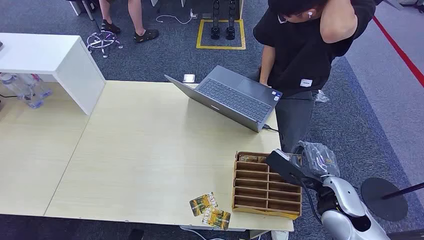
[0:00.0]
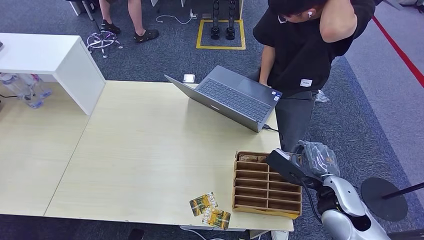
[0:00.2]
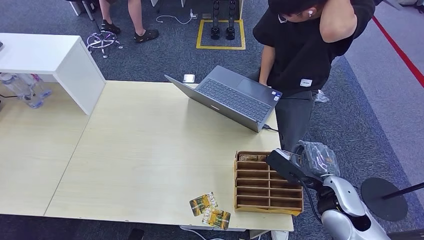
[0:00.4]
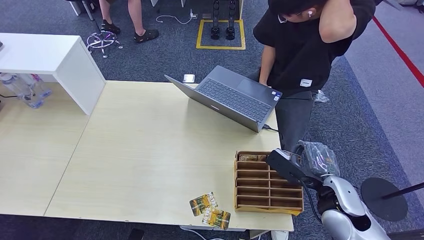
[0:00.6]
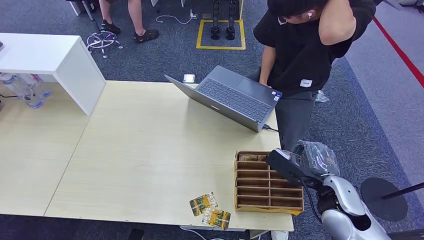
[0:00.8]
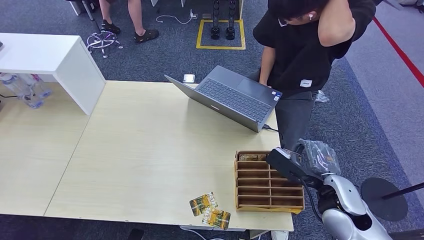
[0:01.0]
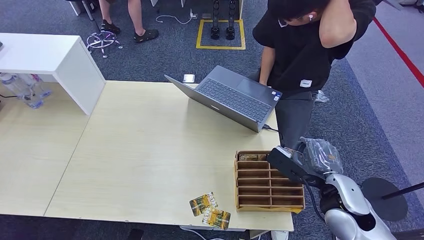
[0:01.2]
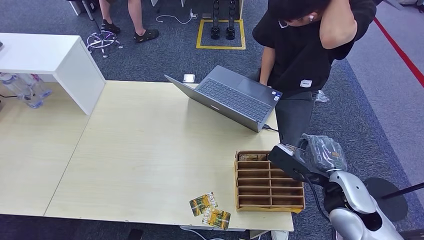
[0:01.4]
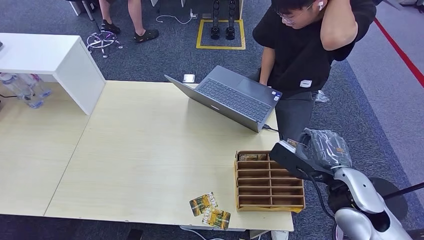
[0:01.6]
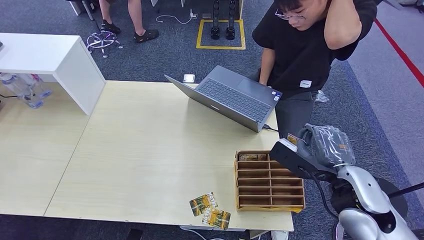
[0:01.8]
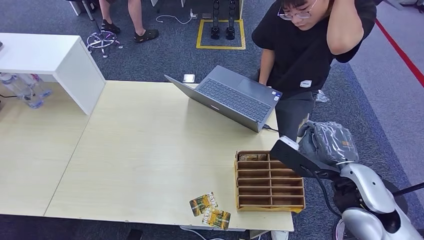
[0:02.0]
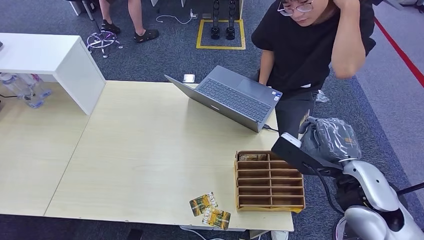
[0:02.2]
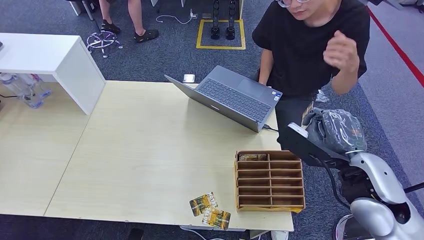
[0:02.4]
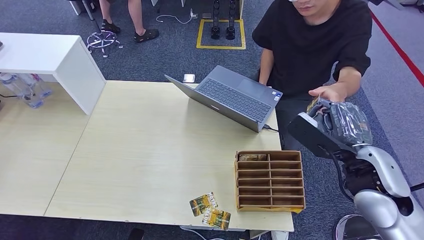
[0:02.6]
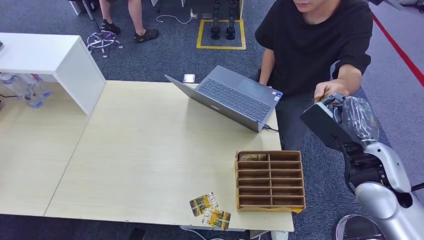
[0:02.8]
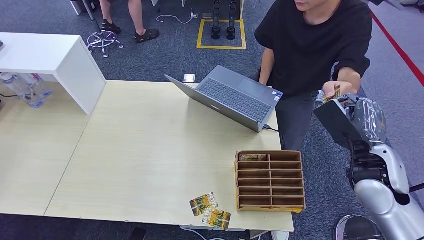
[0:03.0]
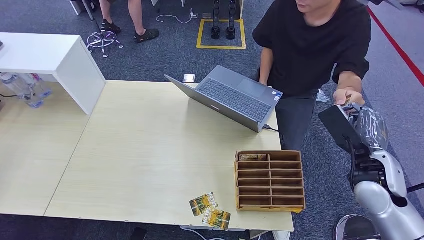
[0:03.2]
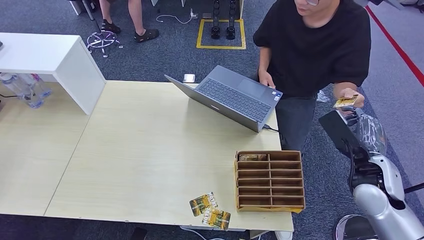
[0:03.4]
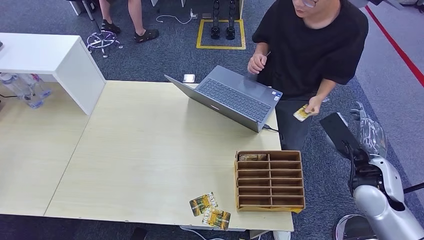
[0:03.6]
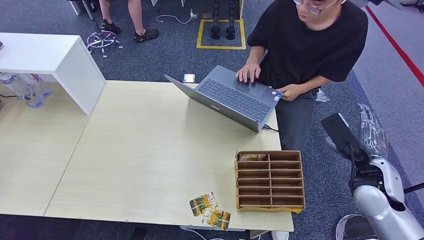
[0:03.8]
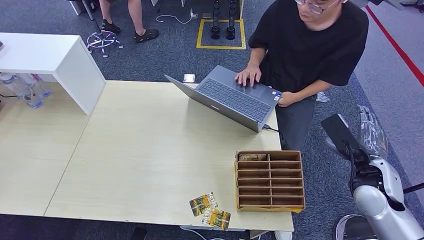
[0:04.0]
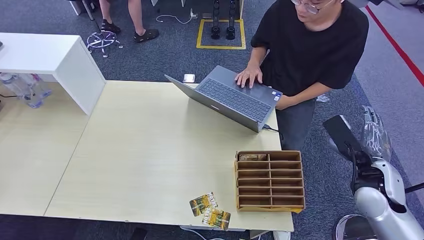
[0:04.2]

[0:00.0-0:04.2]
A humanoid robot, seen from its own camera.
Task of the whole recording: Pick up the card and hand it over to the target person.
Step, 0:00.0 to 0:02.4: Pick up the key card from the card box.
Step, 0:02.8 to 0:04.0: Hand the key card to the target.
0:01.4 to 0:02.8: The right hand moves forward and to the right, approximately 10 cm.
0:02.8 to 0:04.2: The hands stay close to where they were, moving slightly.
